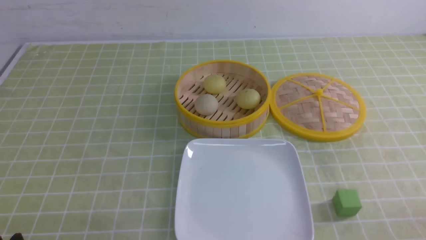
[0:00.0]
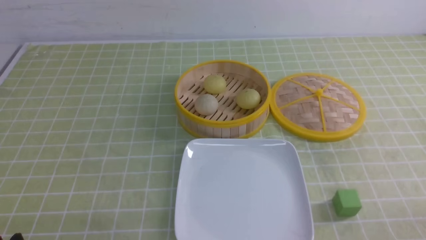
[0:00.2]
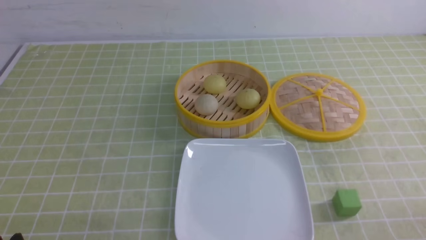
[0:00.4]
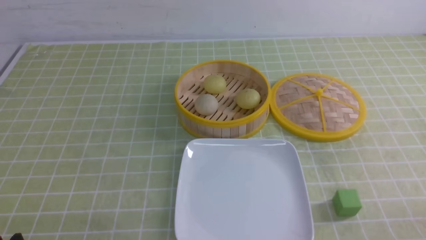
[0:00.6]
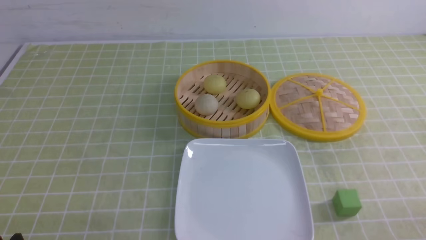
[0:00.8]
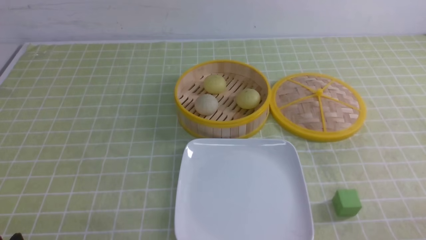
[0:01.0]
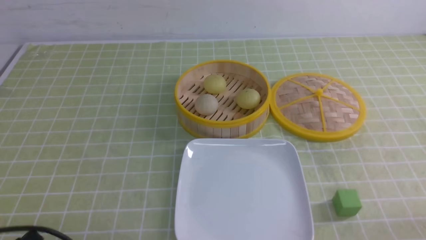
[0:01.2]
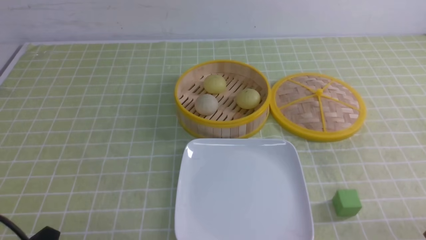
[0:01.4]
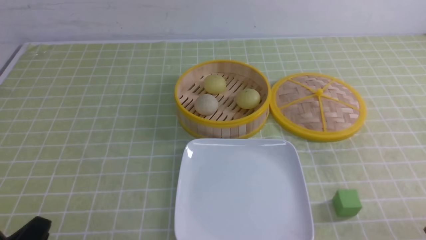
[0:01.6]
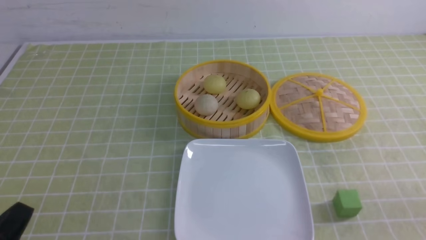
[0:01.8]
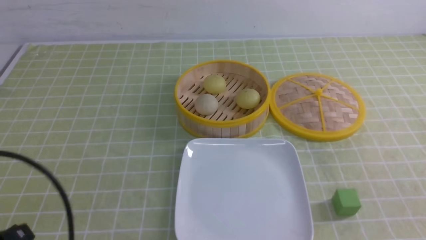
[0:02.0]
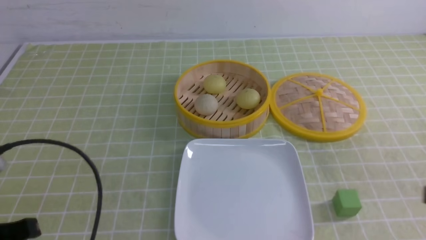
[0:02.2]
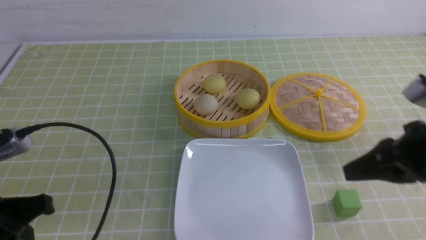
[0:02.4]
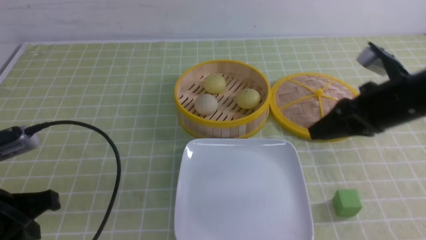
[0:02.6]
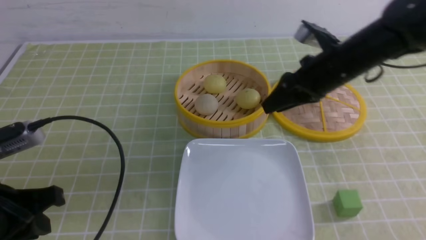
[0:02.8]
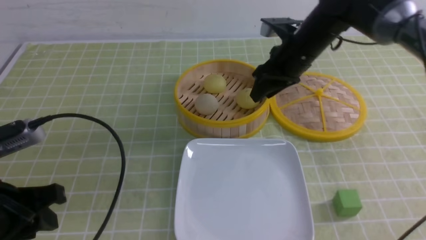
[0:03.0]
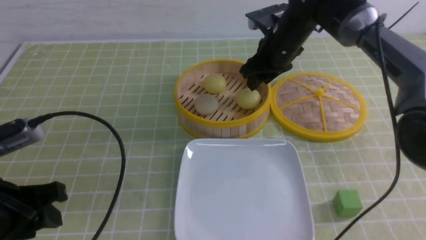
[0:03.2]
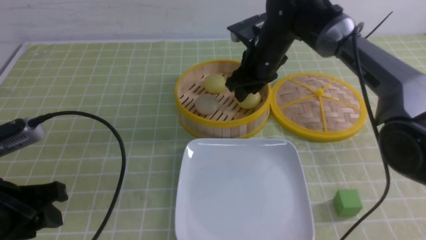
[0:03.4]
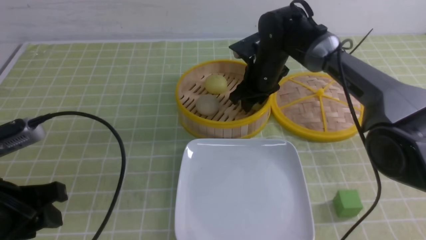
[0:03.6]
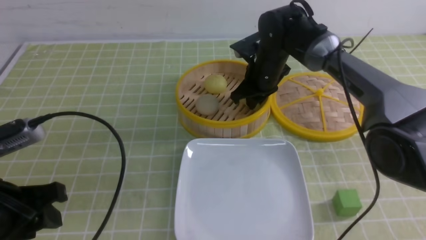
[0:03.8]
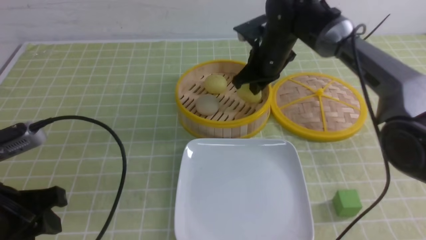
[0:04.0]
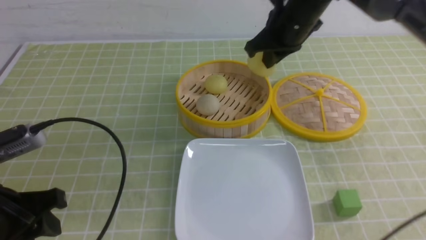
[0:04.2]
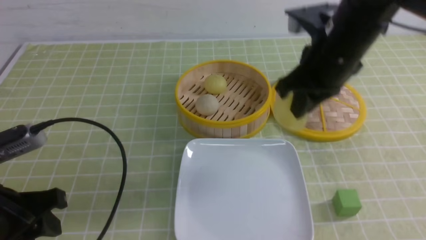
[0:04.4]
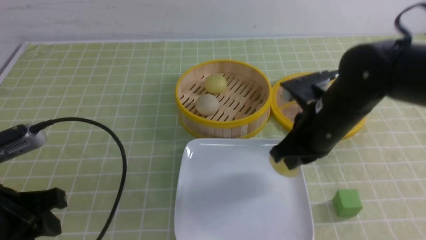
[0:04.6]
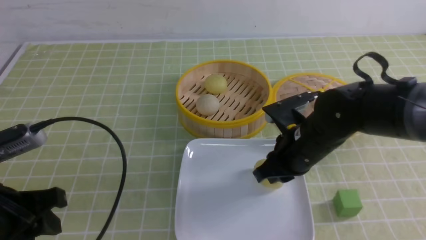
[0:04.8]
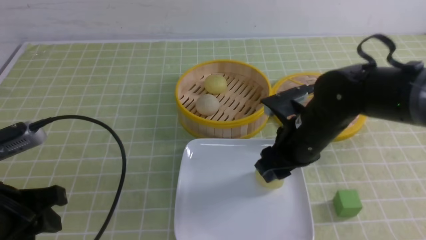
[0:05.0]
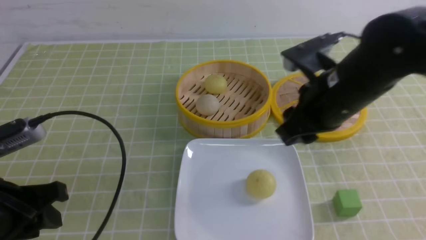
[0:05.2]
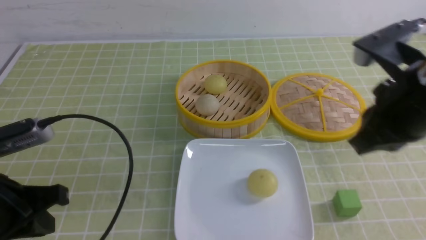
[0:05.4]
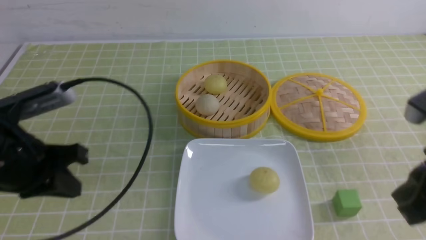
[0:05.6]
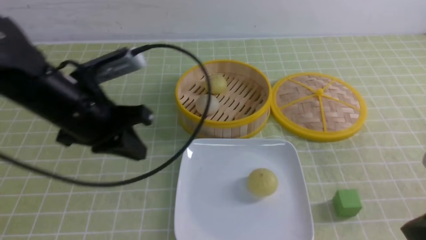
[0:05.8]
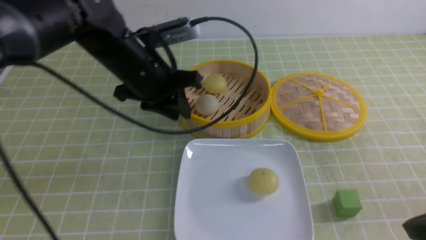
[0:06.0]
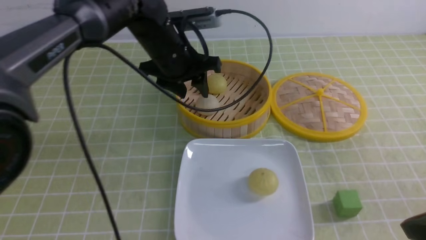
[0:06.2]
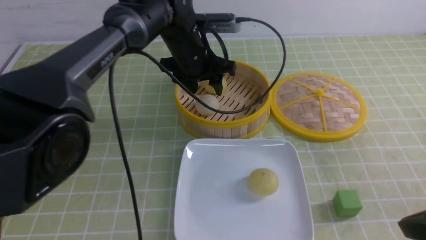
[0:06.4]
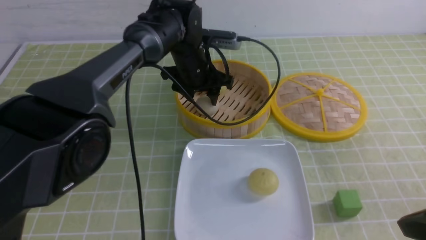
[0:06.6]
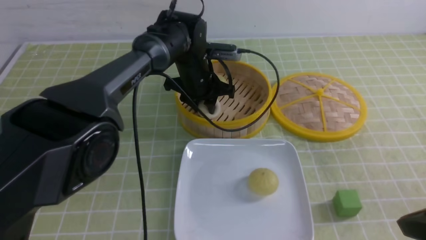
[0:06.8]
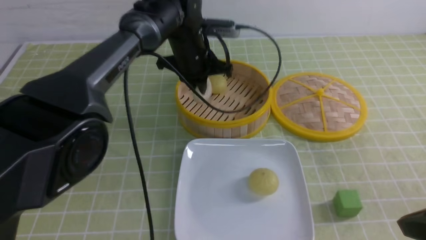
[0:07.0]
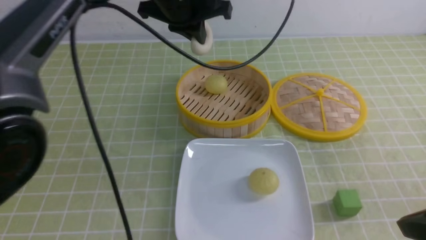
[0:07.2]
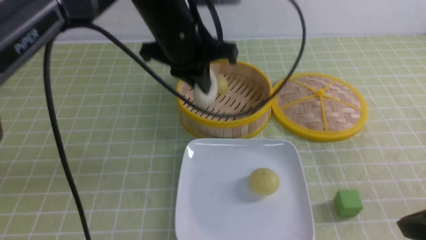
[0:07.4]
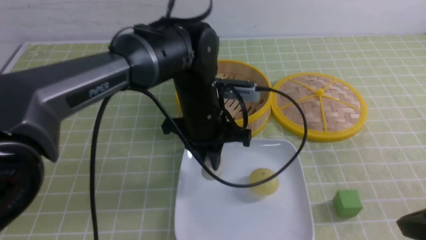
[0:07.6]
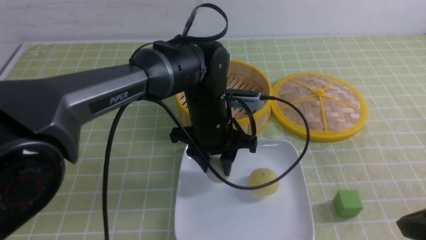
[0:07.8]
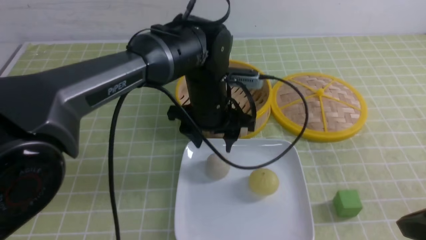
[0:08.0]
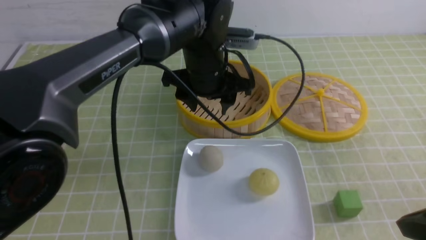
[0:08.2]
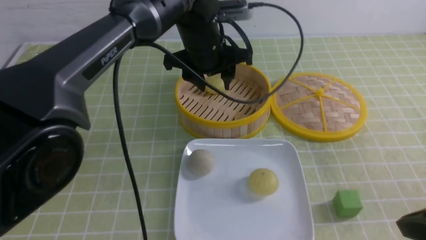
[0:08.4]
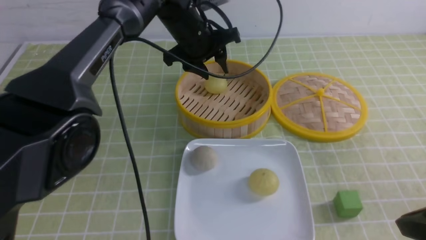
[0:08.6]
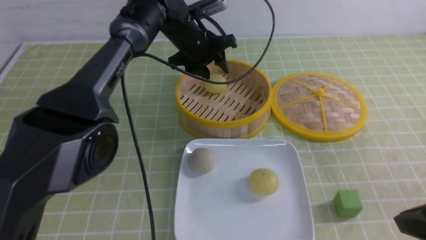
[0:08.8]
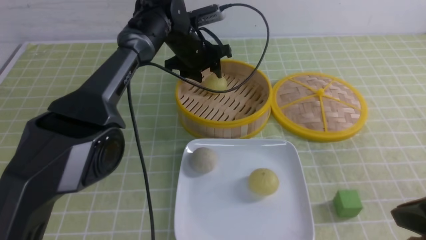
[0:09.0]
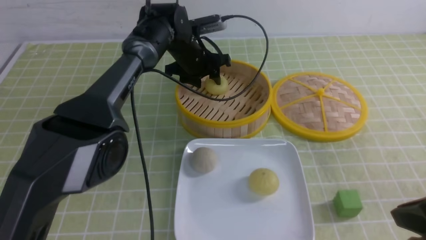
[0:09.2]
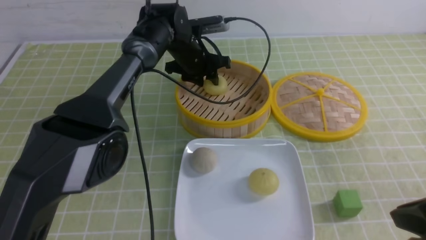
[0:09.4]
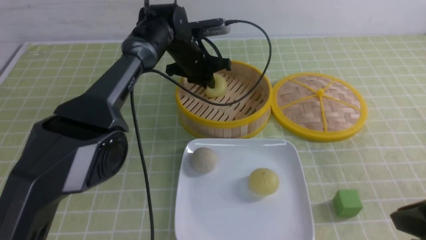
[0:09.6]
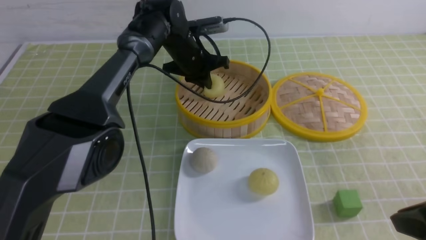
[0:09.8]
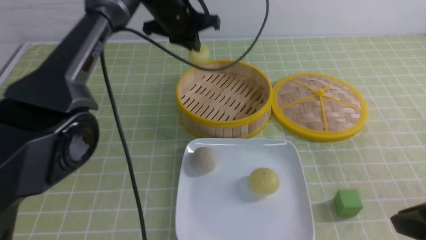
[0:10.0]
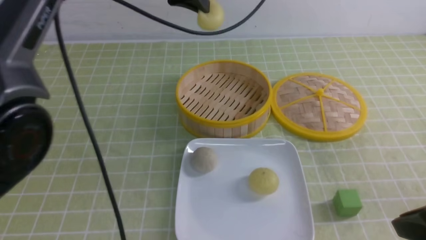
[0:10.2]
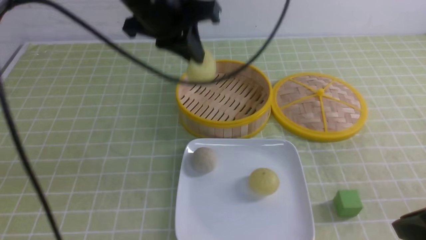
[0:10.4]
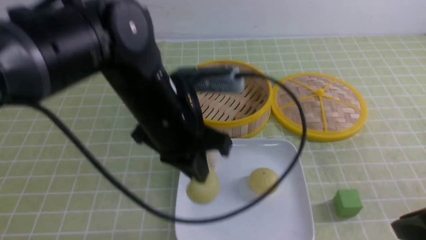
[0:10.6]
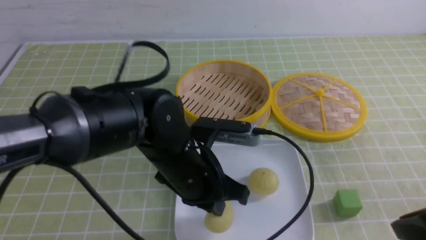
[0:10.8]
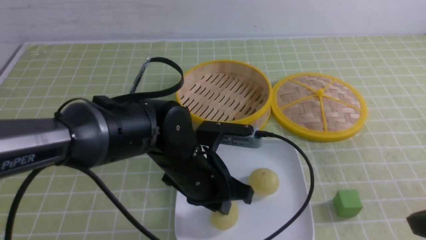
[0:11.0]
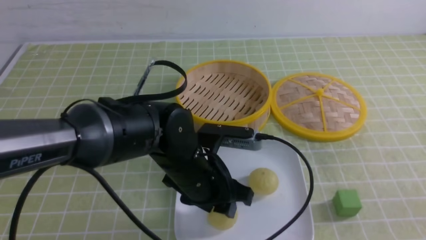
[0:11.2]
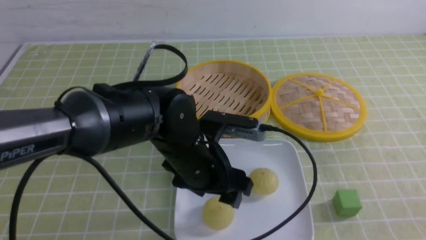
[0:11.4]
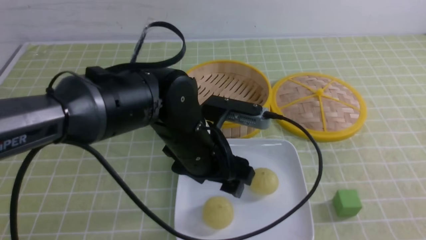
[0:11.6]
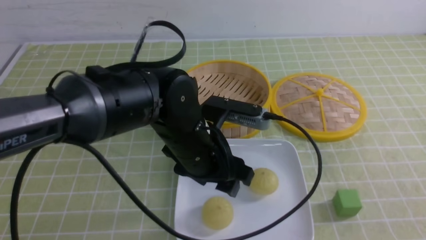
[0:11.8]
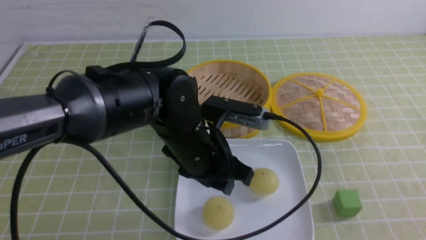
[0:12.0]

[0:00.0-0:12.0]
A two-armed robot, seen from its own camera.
Step, 0:00.0 to 0:03.8: use the right arm to grab the steamed stuffed bun that is closest to it.
Step, 0:04.0 to 0:04.8: use the right arm to put the steamed stuffed bun into the plate.
Step, 0:05.0 to 0:06.8: use the left arm to grab the steamed stuffed bun that is closest to it.
Step, 0:07.0 to 0:07.8: use the left arm to put the steamed stuffed bun into the plate.
Step, 0:08.0 to 0:09.4: use the left arm to grab the steamed stuffed bun that is closest to it.
Step, 0:09.6 to 0:11.0: use the left arm to put the steamed stuffed bun into the plate.
0:01.6 to 0:03.0: The left gripper shifts some 10 cm forward and upward. The right gripper shifts about 40 cm forward and to the left, and opens.
0:03.0 to 0:04.4: The right gripper shifts approximately 10 cm backward, and closes.
0:04.4 to 0:06.0: The right gripper shifts some 25 cm backward and to the right, and opens, then closes again. Meanwhile the left gripper goes approximately 25 cm forward and to the right, and closes, then opens again.
0:06.0 to 0:07.6: The left gripper heads to the right, covering approximately 10 cm, moves about 10 cm forward and comes back, and opens and closes again.
0:07.6 to 0:09.0: The left gripper heads forward, covering some 15 cm, and opens up.
0:09.0 to 0:10.4: The left gripper shifts roughly 20 cm backward and upward, and closes its fingers.
0:10.4 to 0:12.0: The right gripper shifts roughly 10 cm backward, and closes up. The left gripper is displaced downward and backward by about 15 cm, and opens.

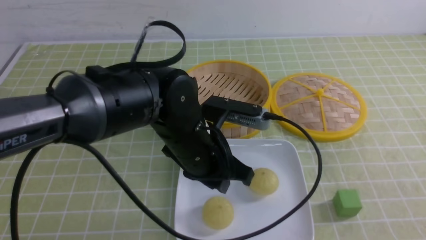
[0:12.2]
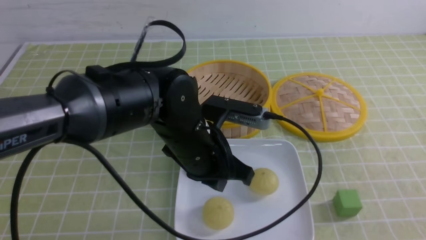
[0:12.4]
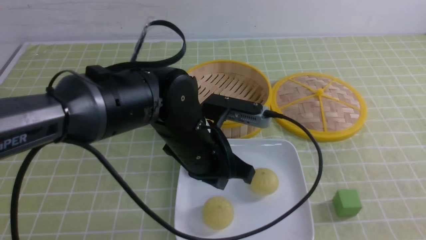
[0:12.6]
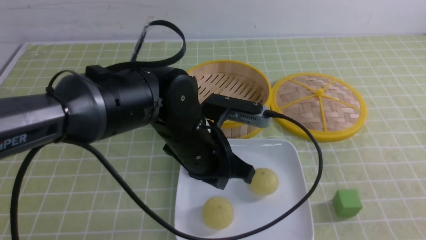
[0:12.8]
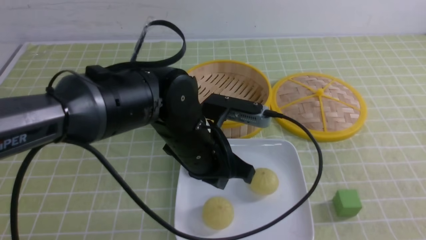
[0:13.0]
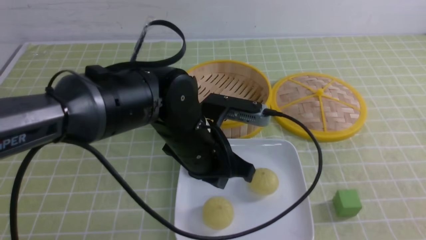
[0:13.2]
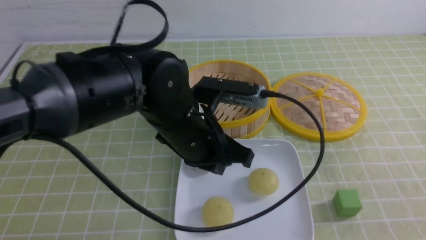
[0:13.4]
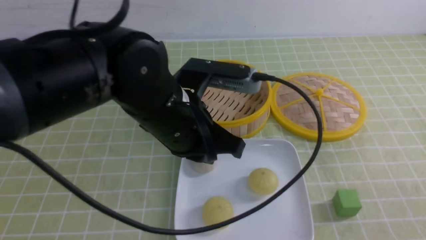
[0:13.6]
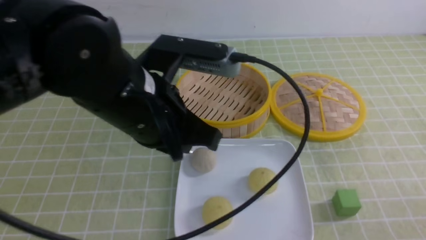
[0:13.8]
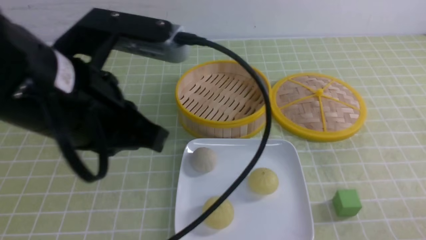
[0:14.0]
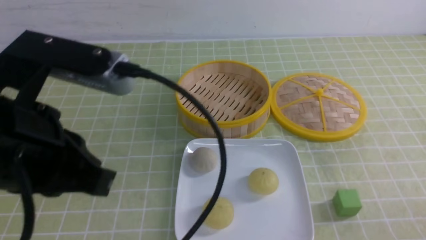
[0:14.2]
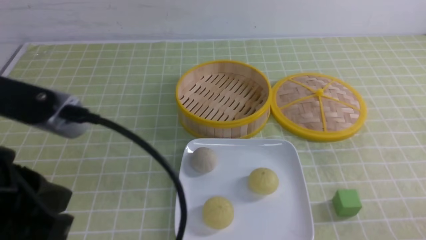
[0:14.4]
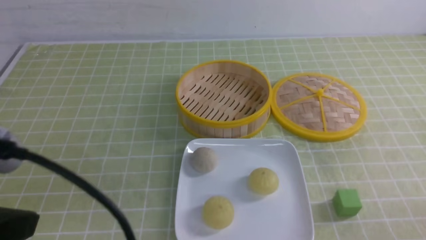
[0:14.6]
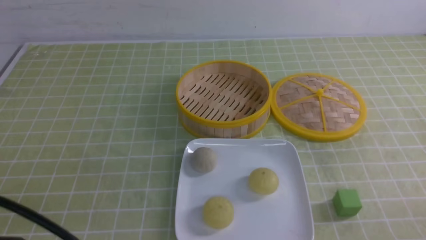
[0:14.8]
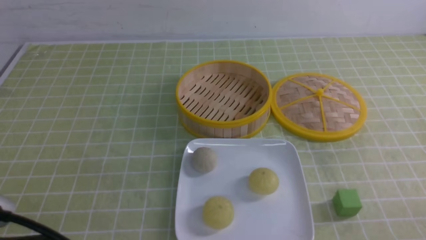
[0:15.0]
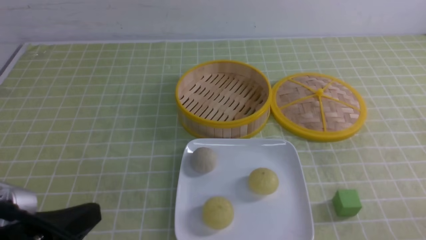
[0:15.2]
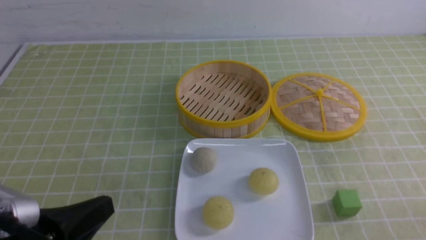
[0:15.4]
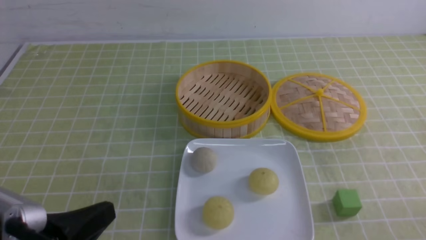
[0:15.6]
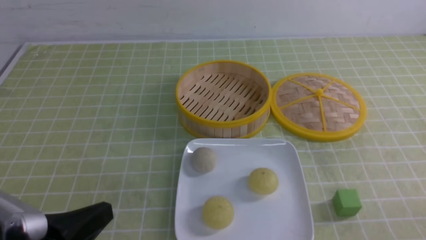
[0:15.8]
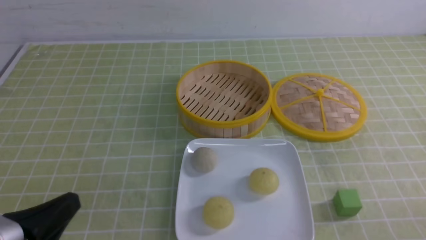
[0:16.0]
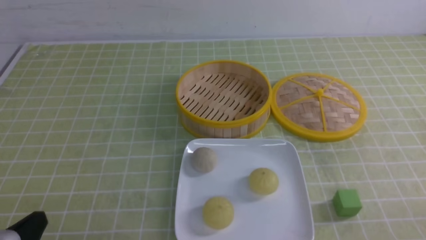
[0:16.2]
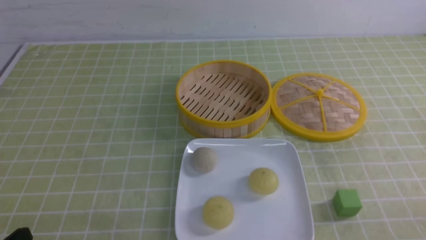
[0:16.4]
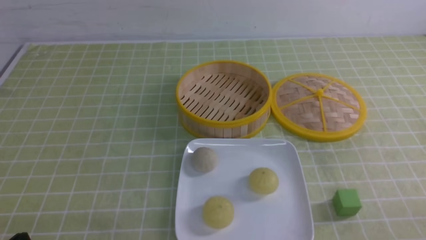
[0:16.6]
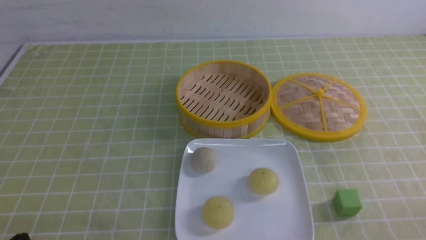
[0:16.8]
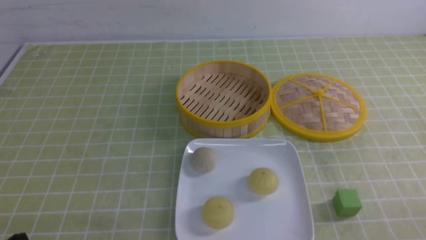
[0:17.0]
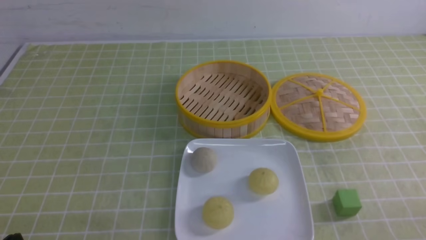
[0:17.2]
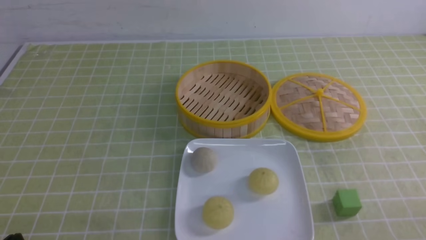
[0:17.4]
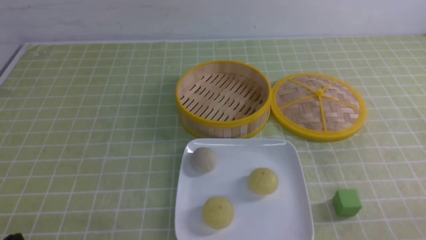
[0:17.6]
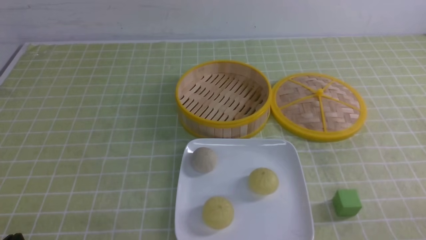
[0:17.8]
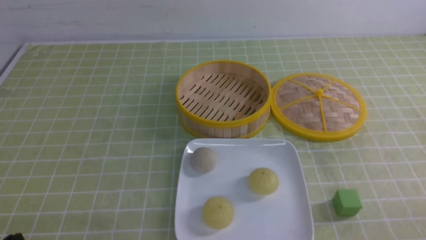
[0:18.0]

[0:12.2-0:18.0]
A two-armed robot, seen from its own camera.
0:12.2 to 0:13.6: The right gripper shifts approximately 5 cm downward; the left gripper shifts approximately 10 cm upward.
0:13.6 to 0:15.0: The right gripper goes about 5 cm downward, while the left gripper travels backward and to the left by about 25 cm.
0:15.0 to 0:16.6: The left gripper moves downward, roughly 15 cm.
0:16.6 to 0:18.0: The two grippers keep their place.
